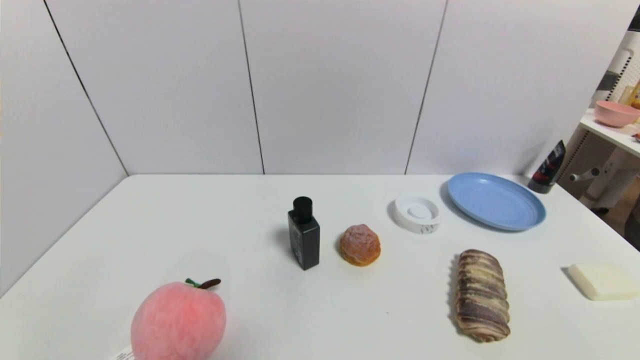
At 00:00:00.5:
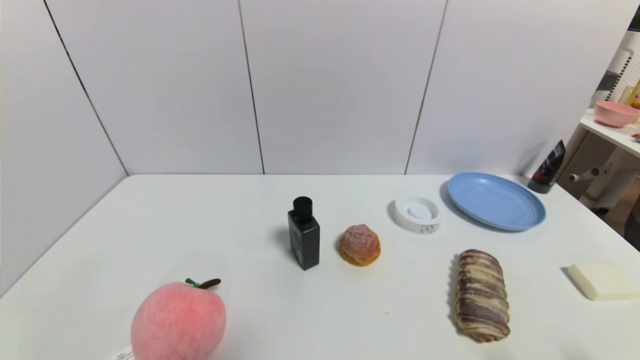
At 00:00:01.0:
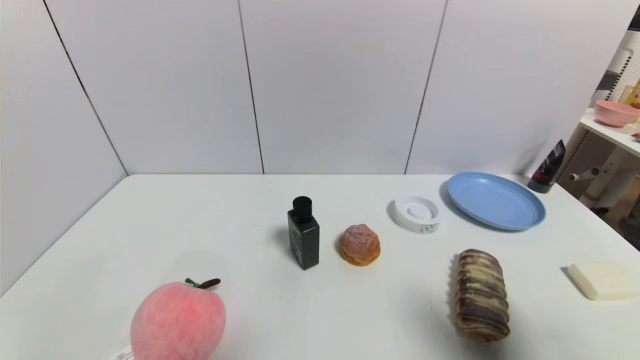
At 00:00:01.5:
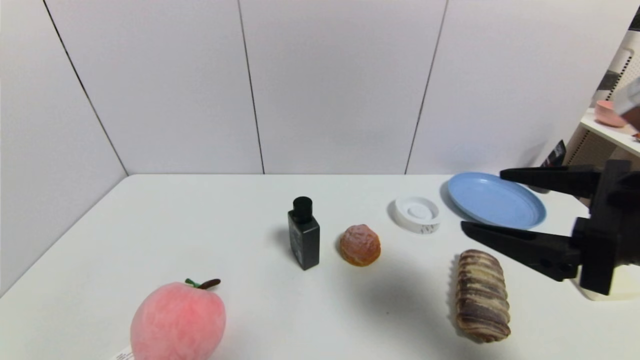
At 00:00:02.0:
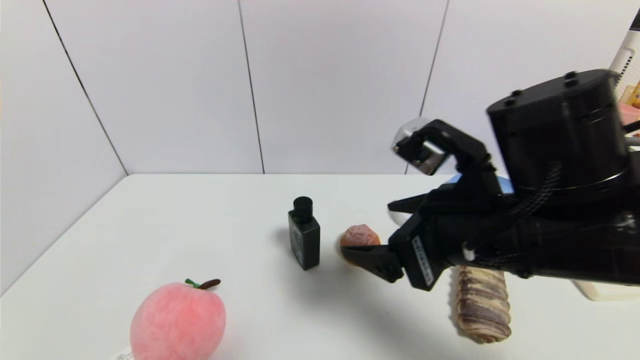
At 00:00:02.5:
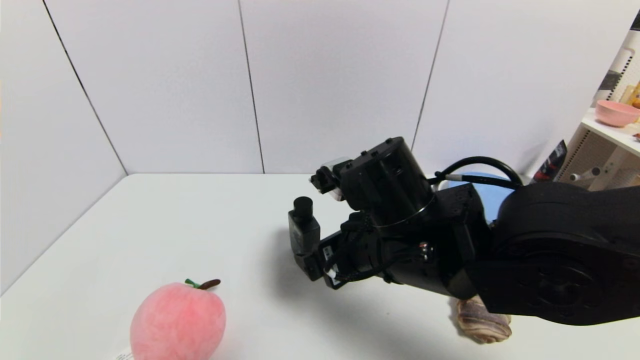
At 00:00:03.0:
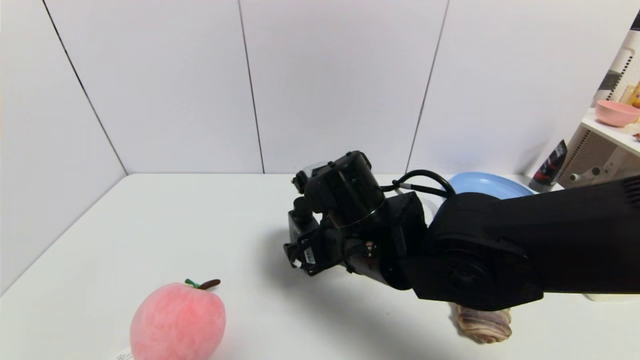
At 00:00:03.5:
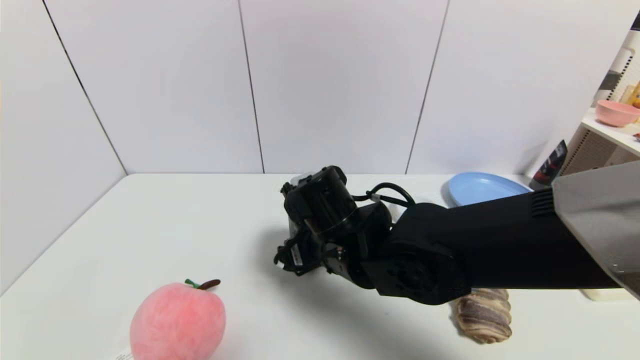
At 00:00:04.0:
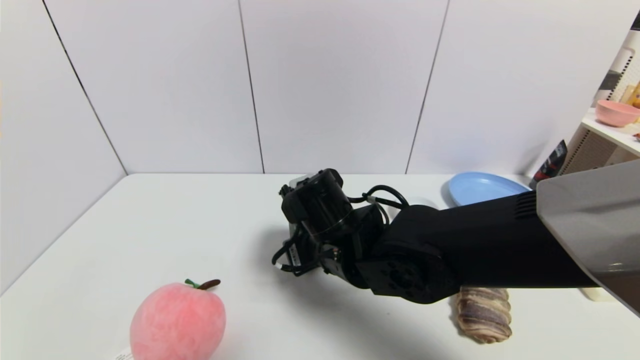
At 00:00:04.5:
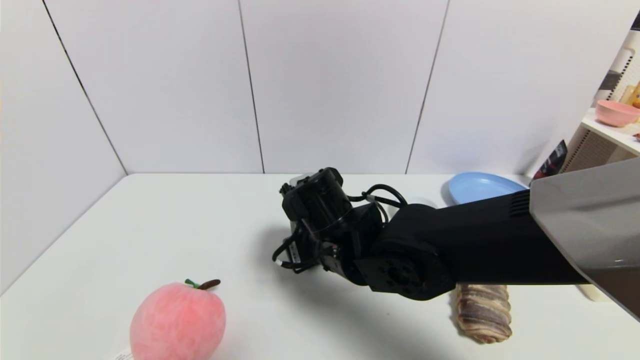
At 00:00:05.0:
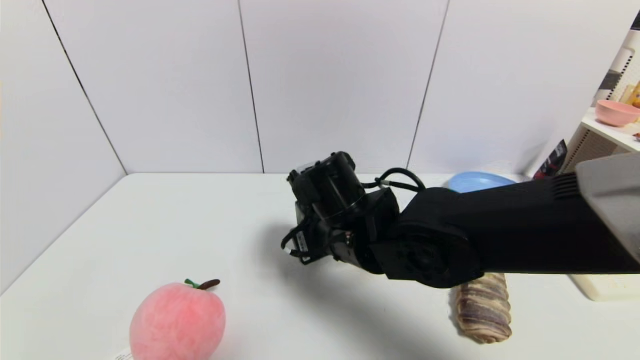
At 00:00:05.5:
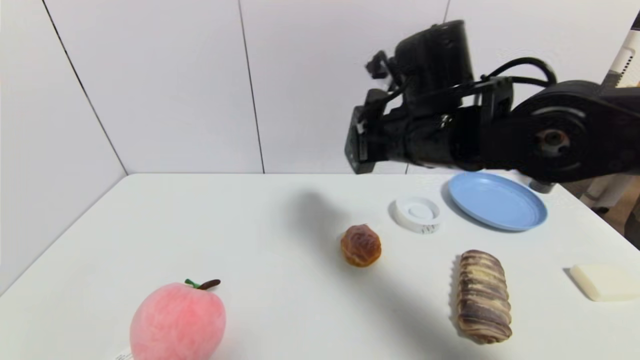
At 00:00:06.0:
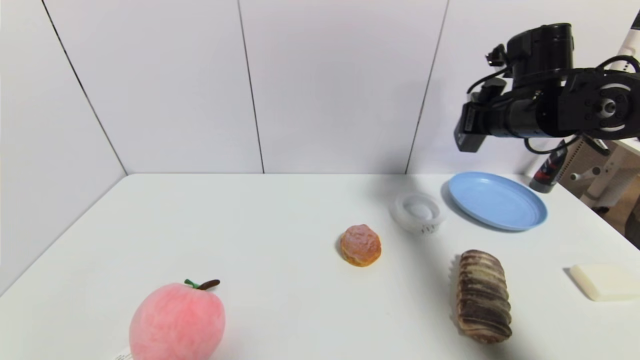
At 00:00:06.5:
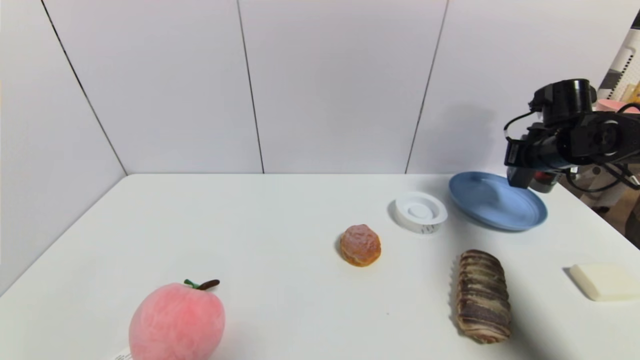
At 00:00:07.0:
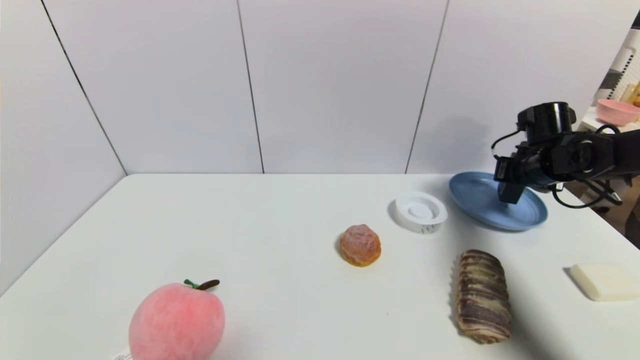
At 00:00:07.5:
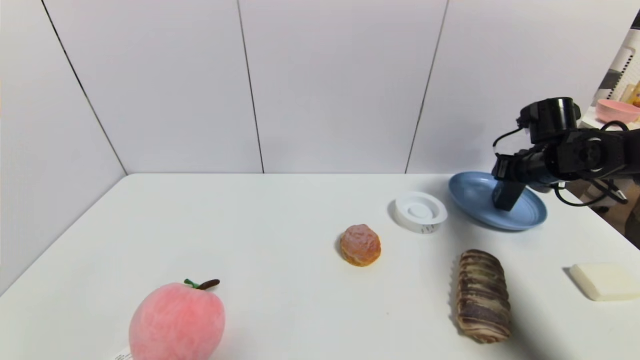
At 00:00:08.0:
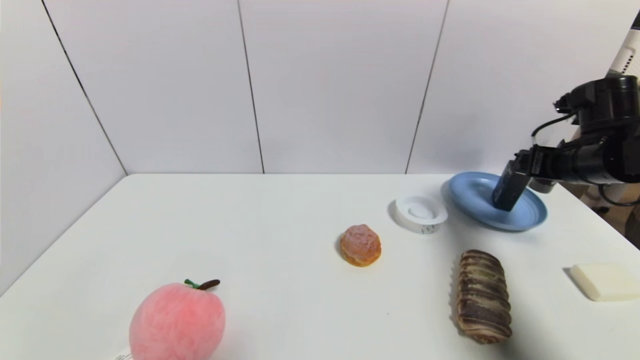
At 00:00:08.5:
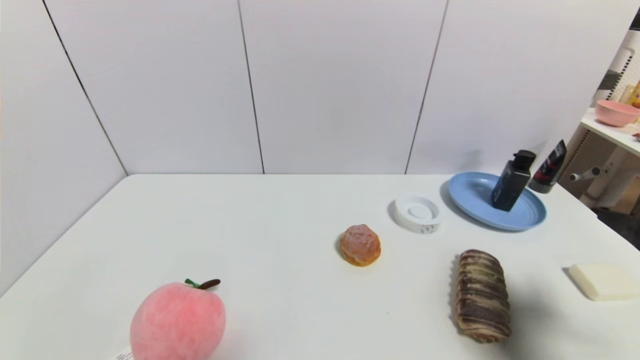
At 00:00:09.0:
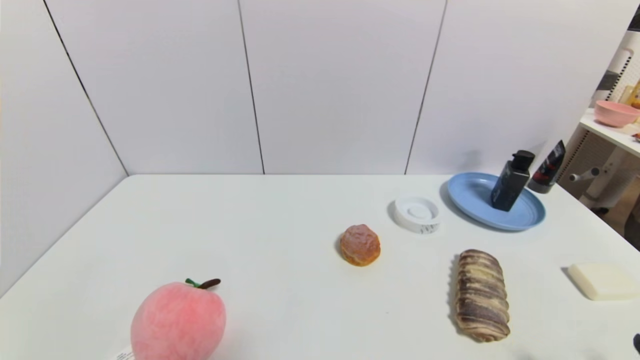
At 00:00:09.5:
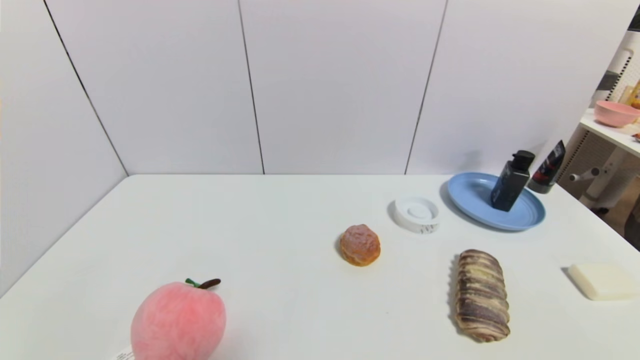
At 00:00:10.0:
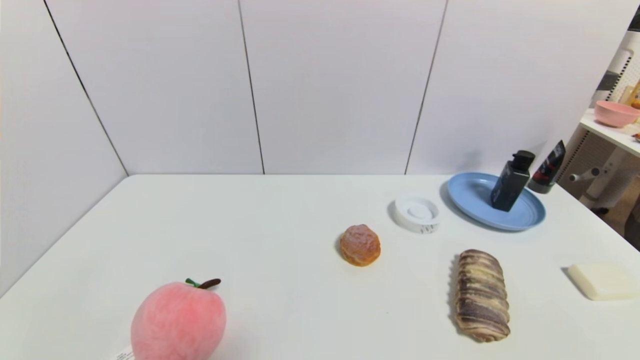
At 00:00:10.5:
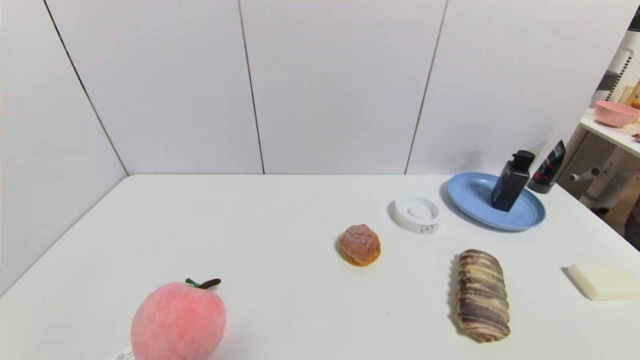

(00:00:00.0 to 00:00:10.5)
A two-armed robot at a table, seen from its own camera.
Task of the whole recording: use a gripper to pick the target object and place on the blue plate.
Step, 00:00:00.0 - 00:00:04.0: Grasp the hard facial cleanser with the right gripper.
Step, 00:00:04.5 - 00:00:07.0: Place the hard facial cleanser on the blue plate with the right gripper.
00:00:00.0 - 00:00:02.0: The right gripper goes some 35 cm forward, to the left and upward.
00:00:02.0 - 00:00:04.0: The right gripper goes roughly 20 cm to the left, downward and forward, and closes its fingers.
00:00:04.0 - 00:00:06.5: The right gripper is displaced to the right by approximately 35 cm, and closes.
00:00:06.5 - 00:00:08.5: The right gripper heads backward, covering some 30 cm, and opens up.
00:00:08.5 - 00:00:10.5: The right gripper goes about 20 cm downward and backward.

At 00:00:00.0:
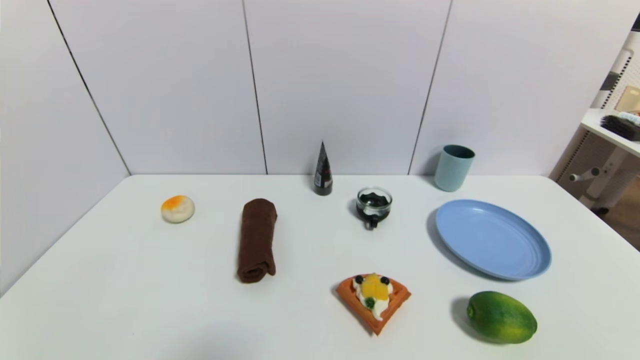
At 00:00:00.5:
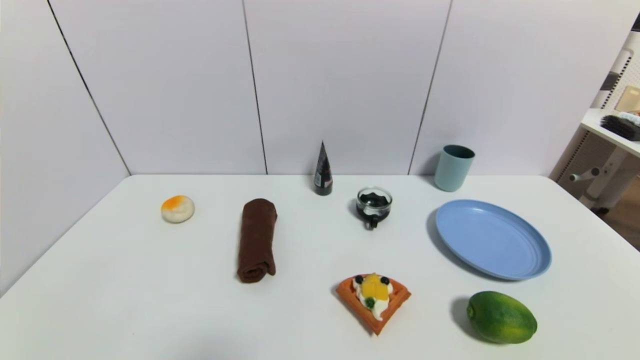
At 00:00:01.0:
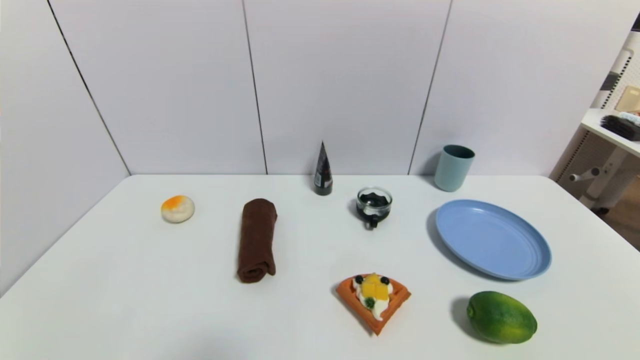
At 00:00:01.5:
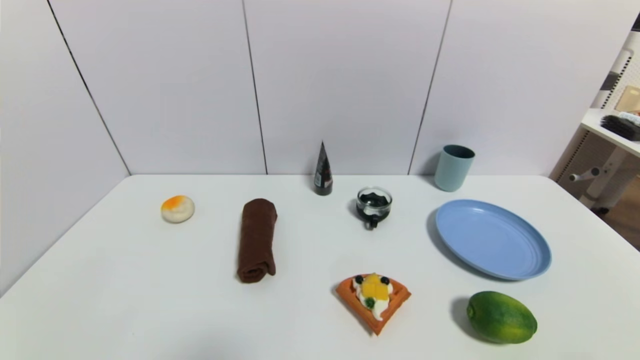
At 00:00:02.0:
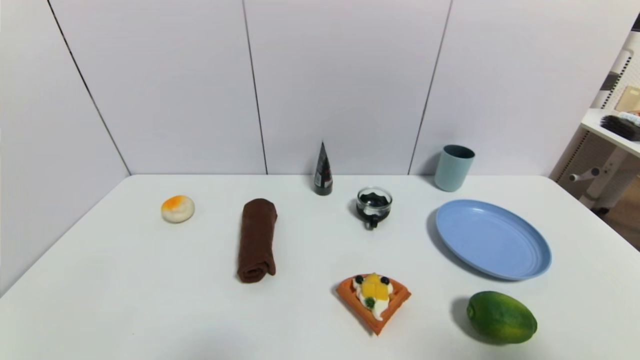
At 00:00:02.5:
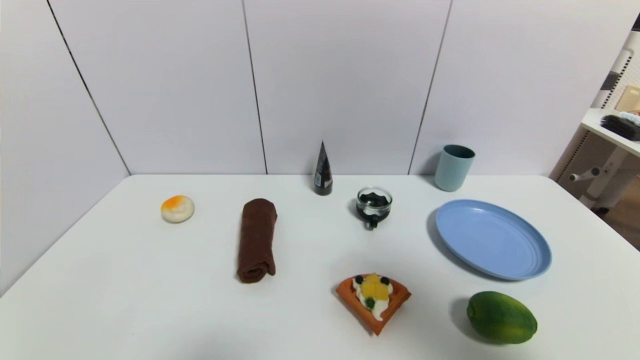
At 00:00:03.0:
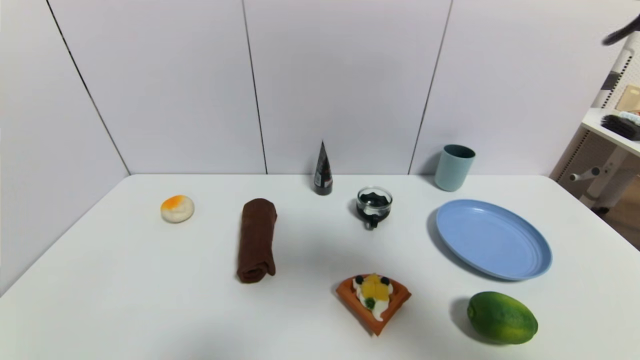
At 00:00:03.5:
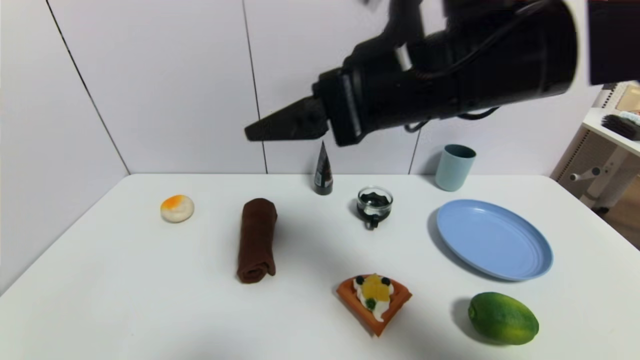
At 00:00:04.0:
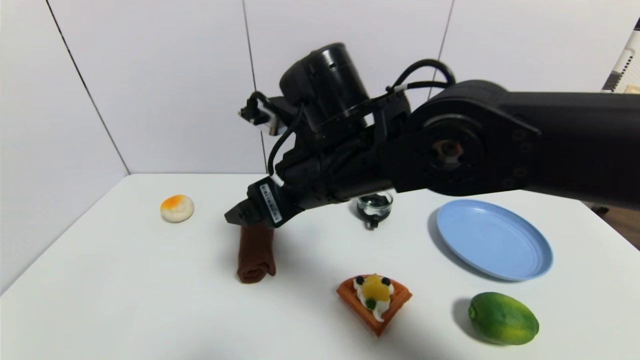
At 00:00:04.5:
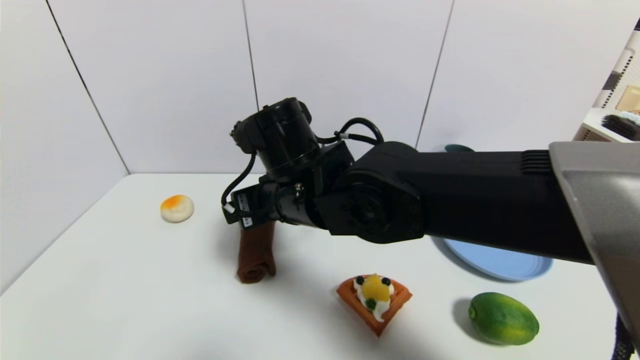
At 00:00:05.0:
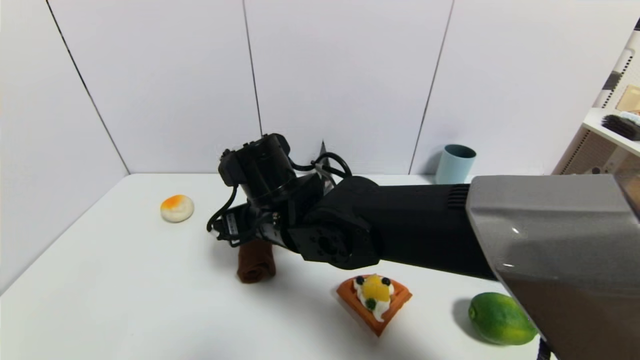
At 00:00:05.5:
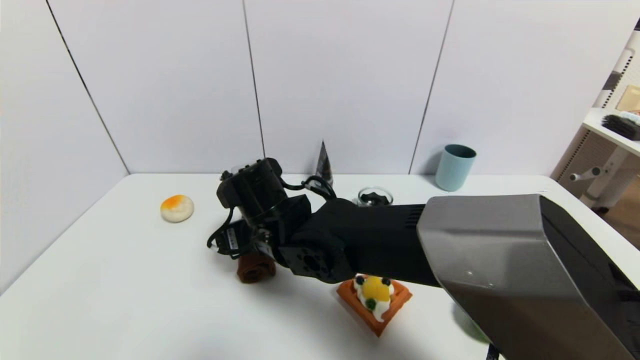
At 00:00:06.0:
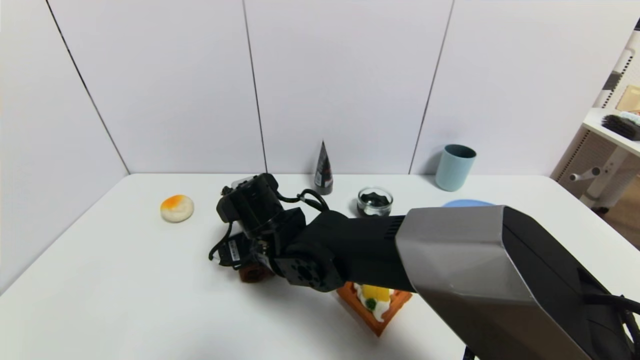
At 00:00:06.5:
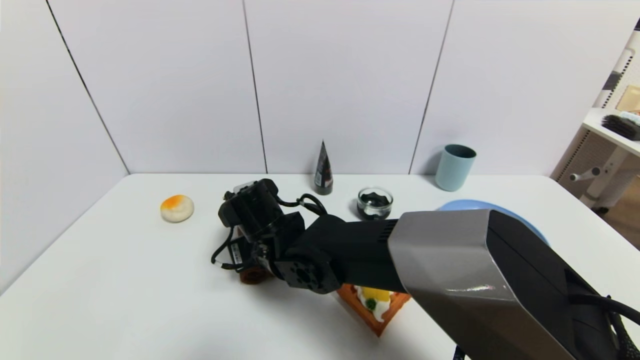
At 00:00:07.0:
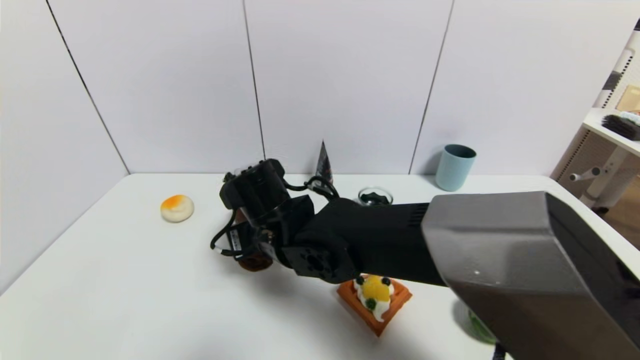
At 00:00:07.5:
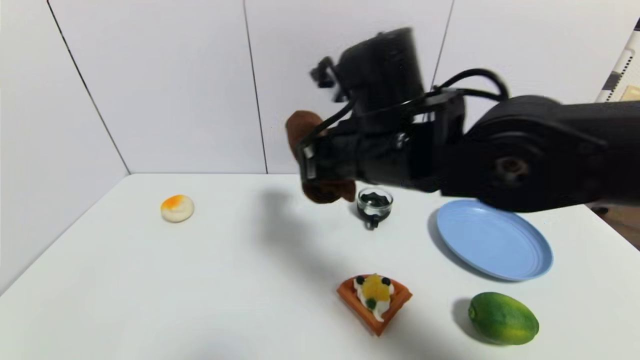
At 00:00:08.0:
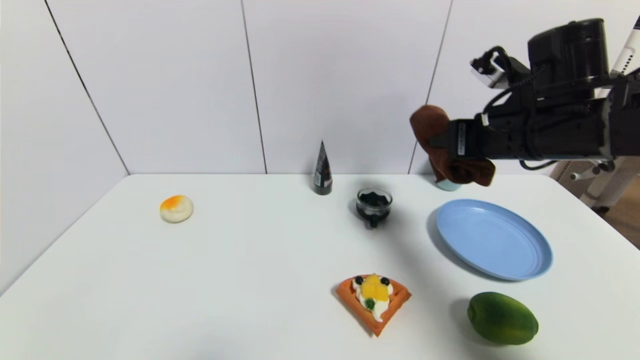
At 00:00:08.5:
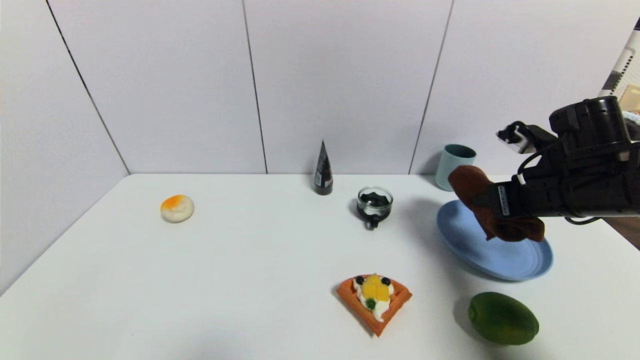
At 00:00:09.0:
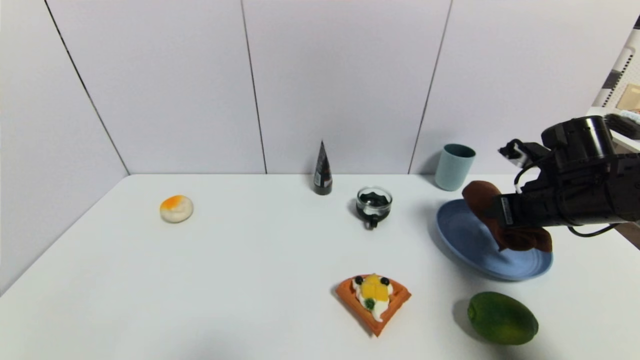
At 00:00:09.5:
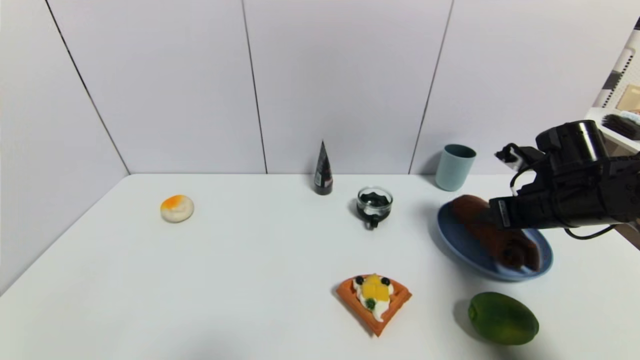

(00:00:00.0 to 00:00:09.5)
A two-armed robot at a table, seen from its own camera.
Task of the whole recording: use a gripper to pick the target object and place on the blue plate.
Step, 00:00:00.0 - 00:00:06.5: Grasp the brown towel with the right gripper.
00:00:00.0 - 00:00:02.0: The right gripper travels upward by roughly 25 cm.
00:00:02.0 - 00:00:04.0: The right gripper goes approximately 40 cm to the left and forward.
00:00:04.0 - 00:00:05.5: The right gripper goes approximately 15 cm downward and to the left.
00:00:05.5 - 00:00:07.5: The right gripper is displaced to the right and upward by approximately 15 cm, and closes.
00:00:07.5 - 00:00:09.5: The right gripper travels to the right by roughly 25 cm, and opens.
